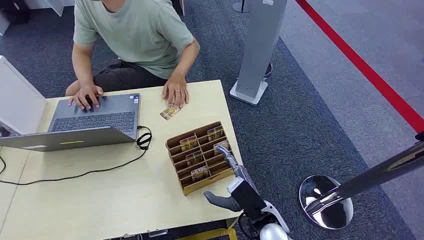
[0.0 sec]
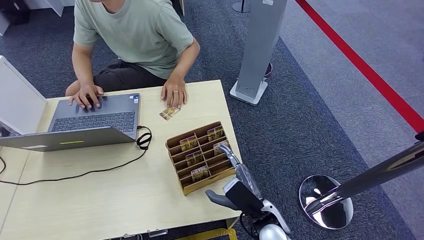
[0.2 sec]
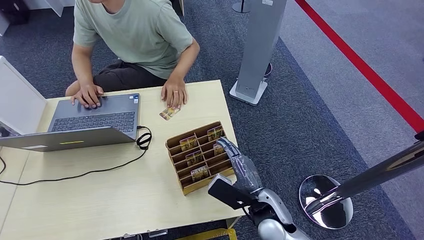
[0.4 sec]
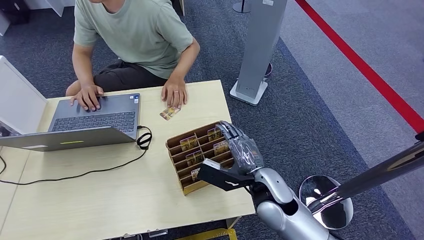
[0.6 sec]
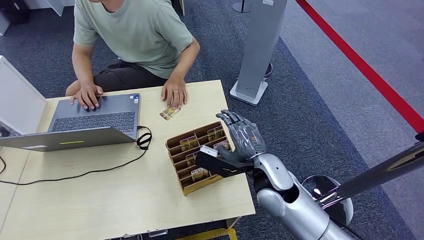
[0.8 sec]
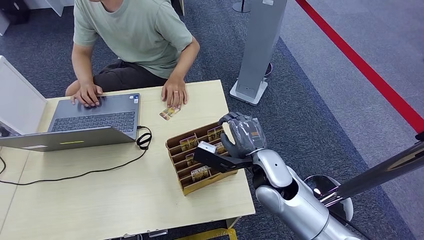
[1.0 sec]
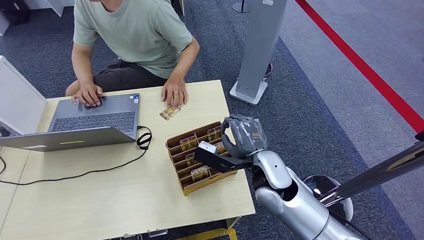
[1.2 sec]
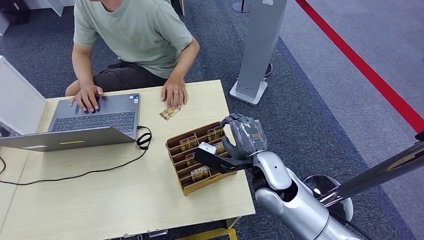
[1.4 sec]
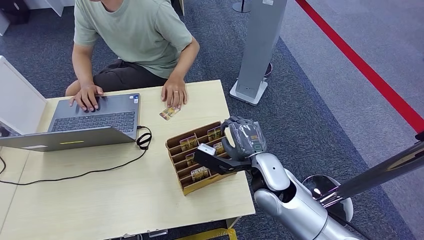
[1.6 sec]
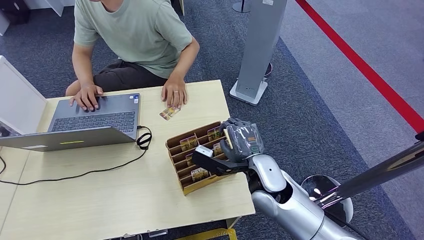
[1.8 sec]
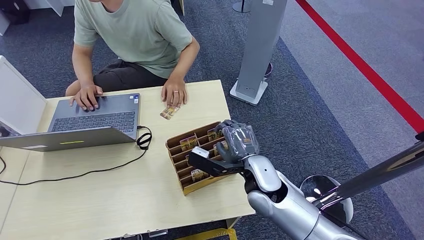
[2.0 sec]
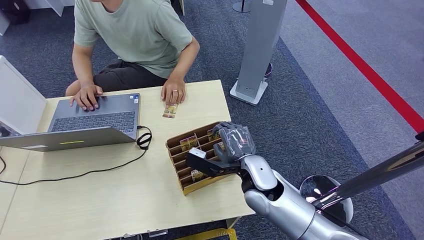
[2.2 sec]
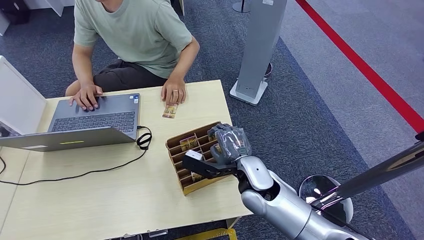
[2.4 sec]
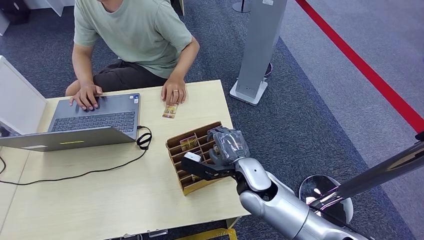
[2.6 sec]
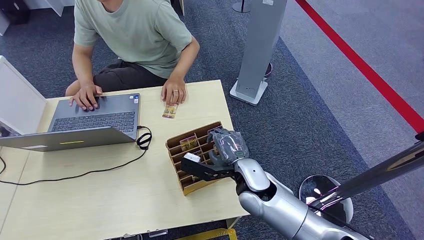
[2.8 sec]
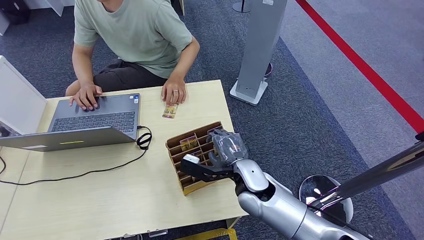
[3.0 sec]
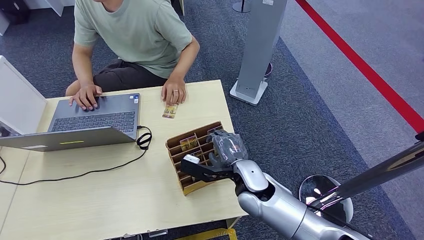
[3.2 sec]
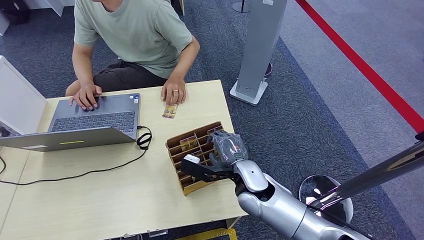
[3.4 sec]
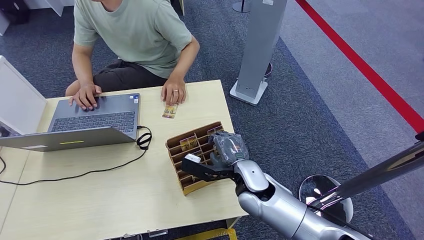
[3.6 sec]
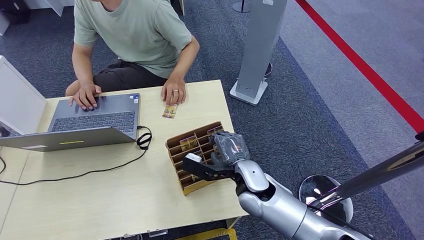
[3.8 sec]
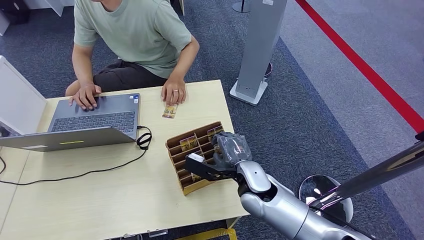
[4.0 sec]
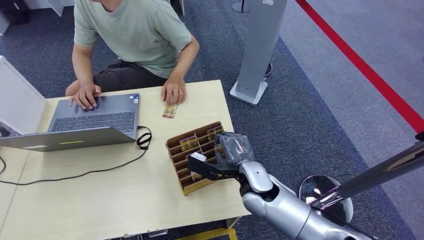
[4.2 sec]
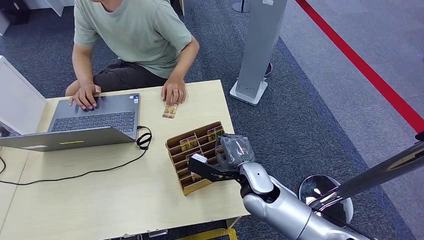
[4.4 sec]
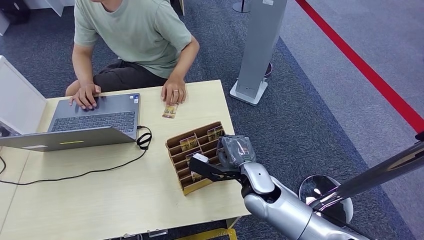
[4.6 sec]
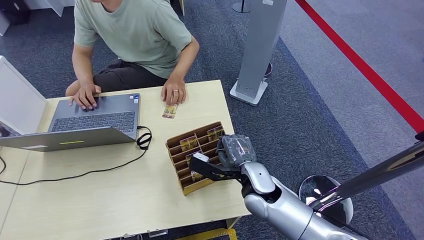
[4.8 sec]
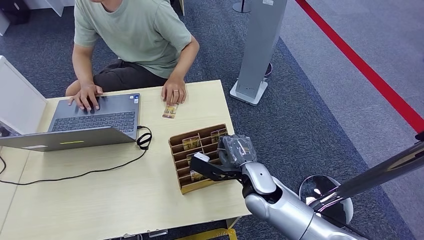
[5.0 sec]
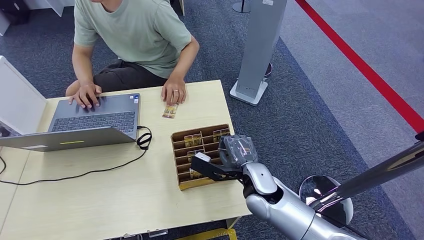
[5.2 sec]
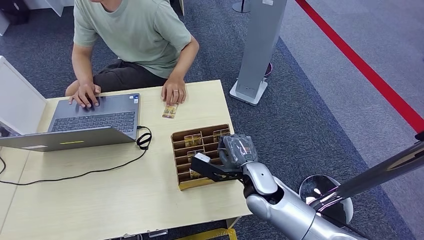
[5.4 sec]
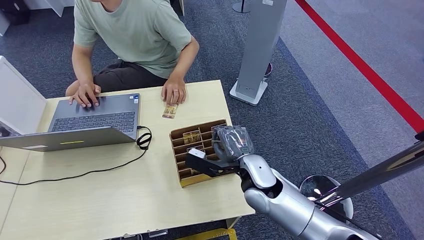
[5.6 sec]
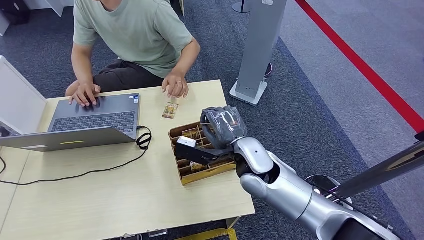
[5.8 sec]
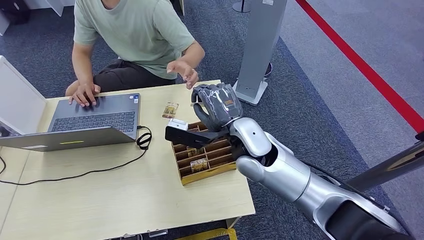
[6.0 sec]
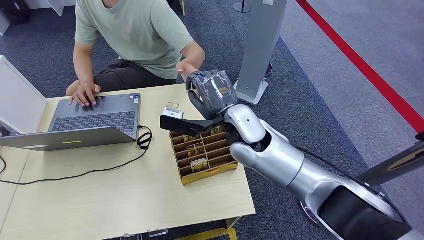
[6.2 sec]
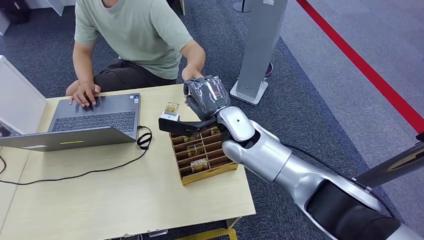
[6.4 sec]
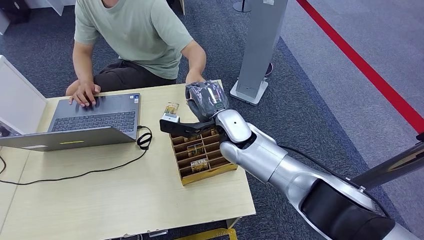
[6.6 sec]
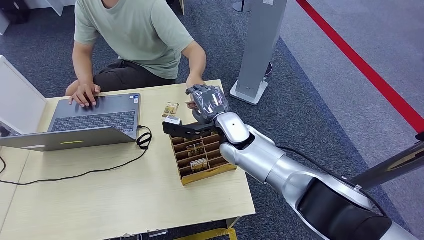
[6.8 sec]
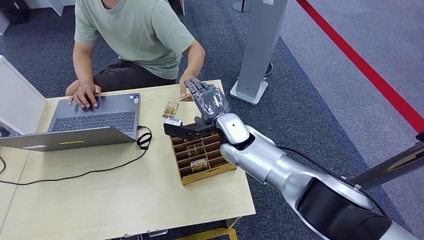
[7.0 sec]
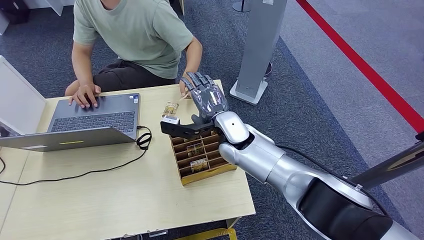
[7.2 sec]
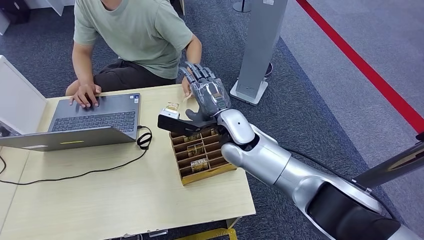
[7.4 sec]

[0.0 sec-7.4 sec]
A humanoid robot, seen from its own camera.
Step, 0.0 sec to 5.8 sec: Pick up the key card from the card box.
Step, 6.0 sec to 7.4 sec: Hand the key card to the target.
1.4 sec to 3.0 sec: The right hand changes place by approximately 5 cm.
3.0 sec to 4.4 sec: The hands stay close to where they were, moving slightly.
4.4 sec to 6.0 sec: The right hand travels upward by approximately 15 cm.
6.0 sec to 7.4 sec: The right hand travels downward and back again, some 5 cm each way.
